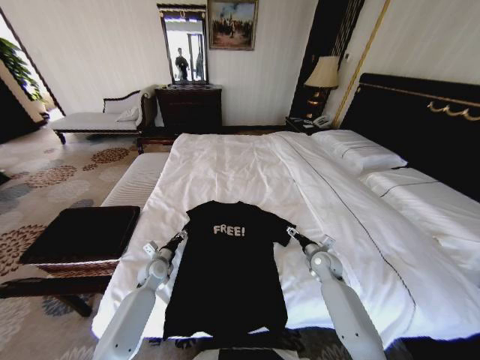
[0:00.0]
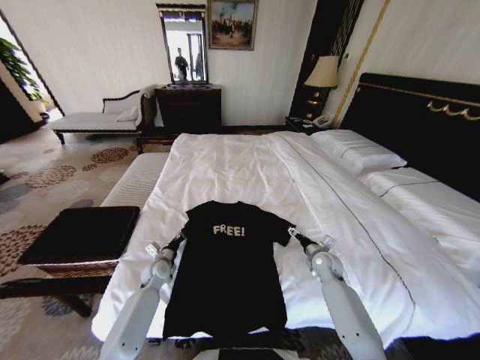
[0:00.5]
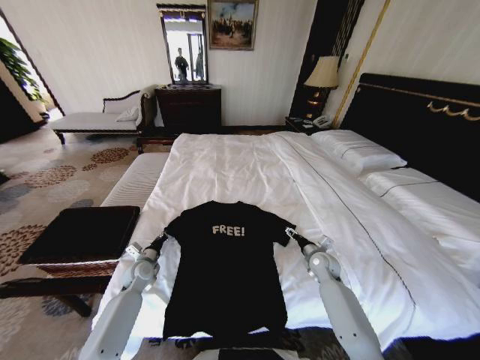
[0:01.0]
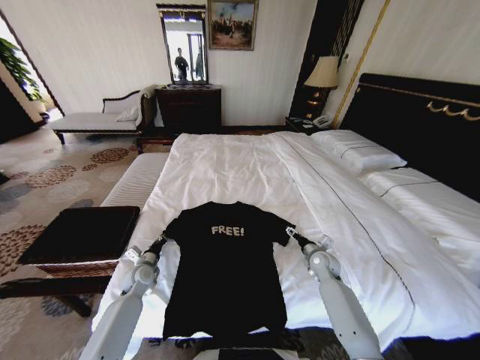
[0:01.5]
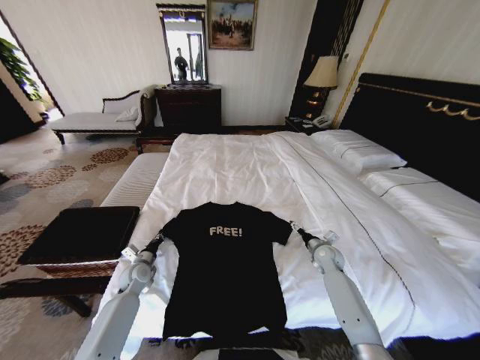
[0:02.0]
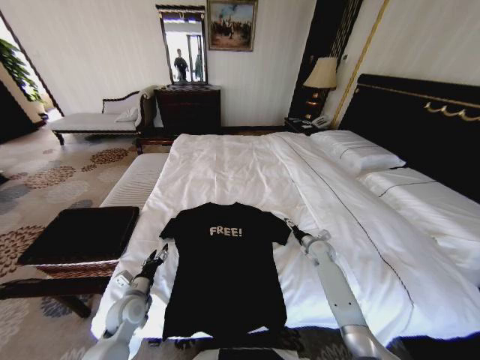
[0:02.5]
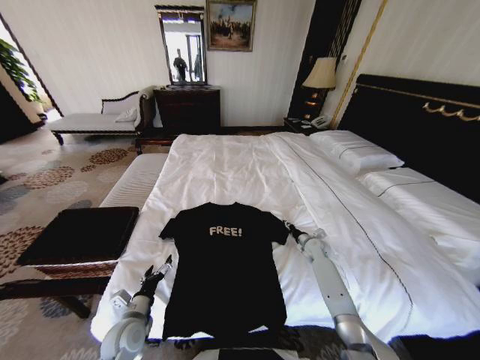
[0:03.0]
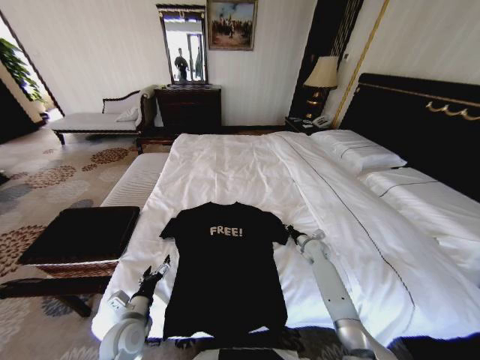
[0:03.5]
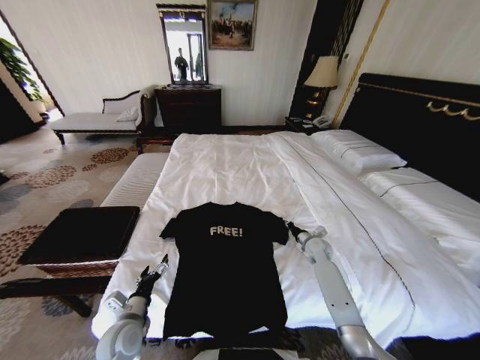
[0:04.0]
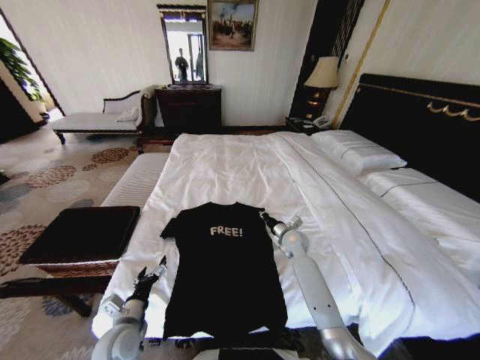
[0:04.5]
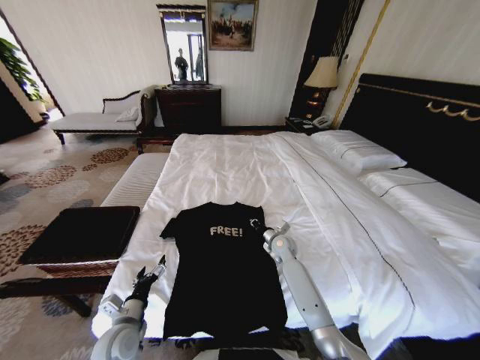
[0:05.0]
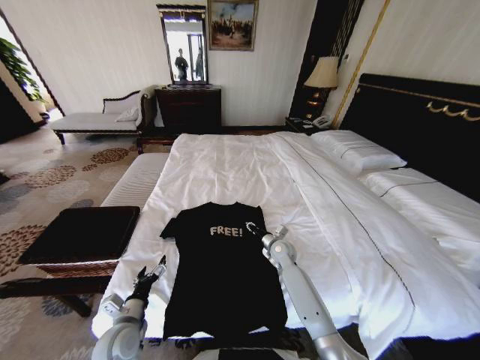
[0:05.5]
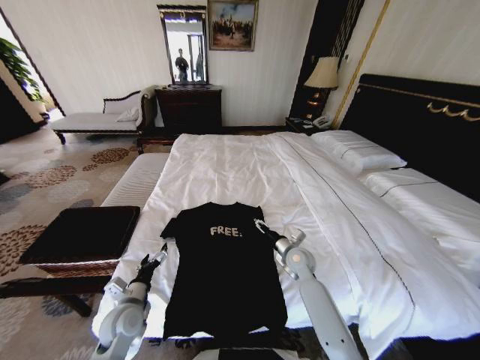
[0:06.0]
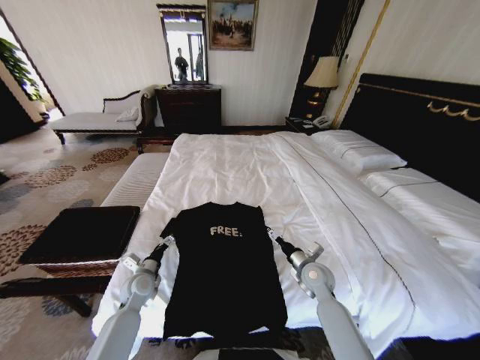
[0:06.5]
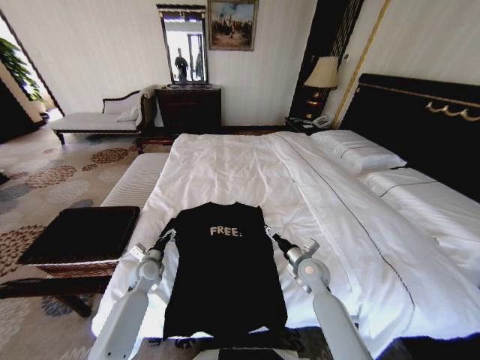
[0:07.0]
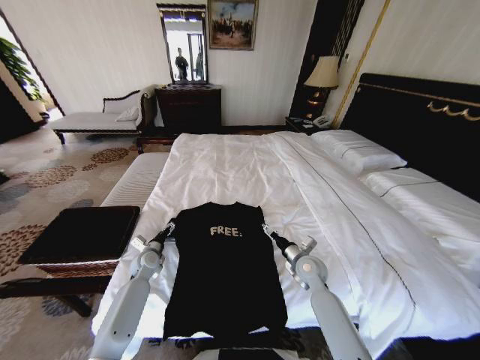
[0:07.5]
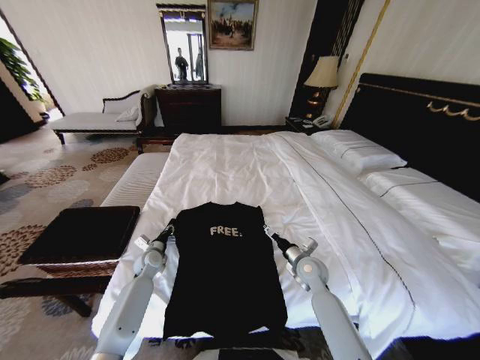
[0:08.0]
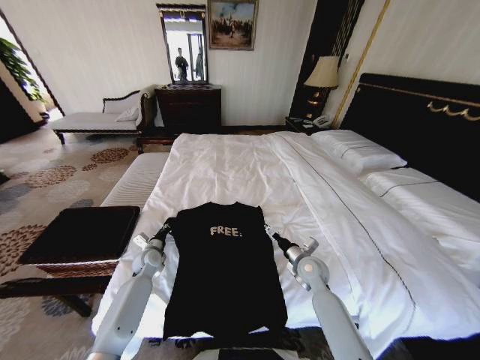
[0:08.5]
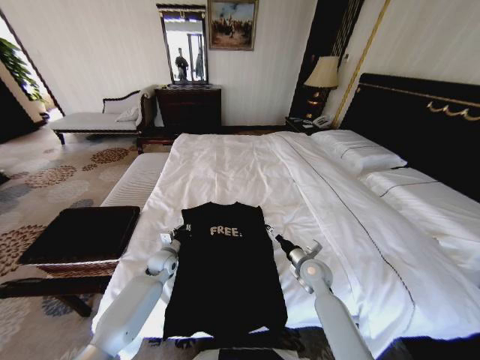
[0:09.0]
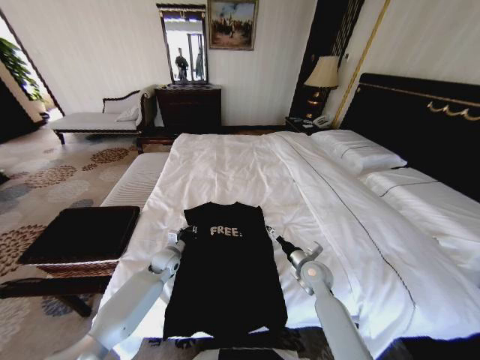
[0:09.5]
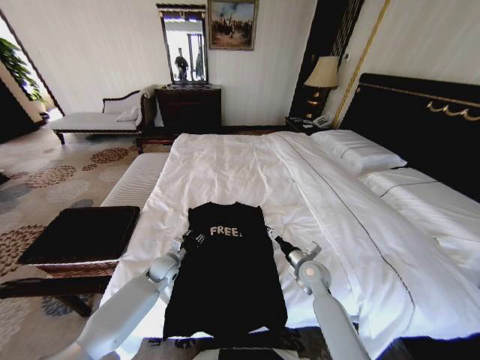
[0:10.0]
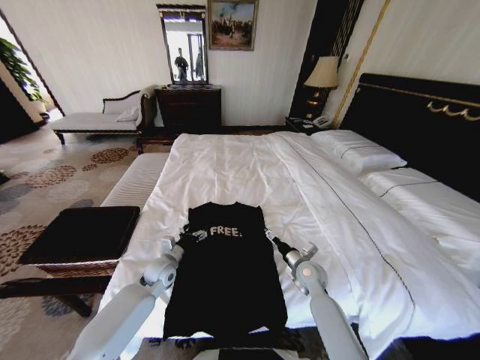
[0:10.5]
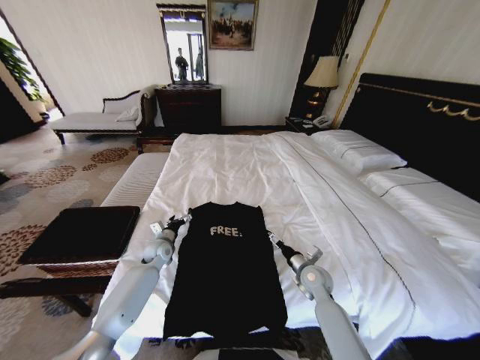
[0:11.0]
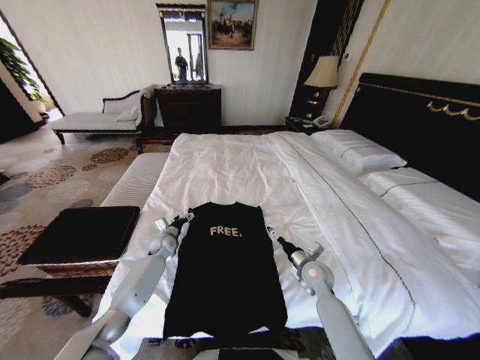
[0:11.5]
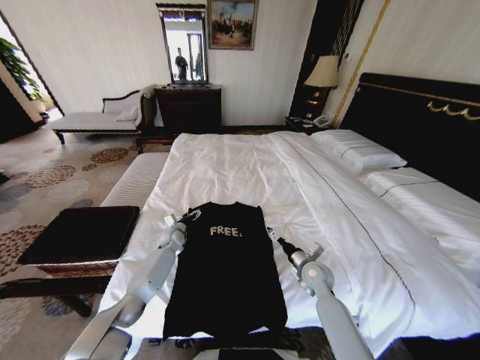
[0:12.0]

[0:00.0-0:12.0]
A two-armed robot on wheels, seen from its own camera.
Task of the whole recording: Fold the clothes on the bed and place them into the basket.
0:00.0 to 0:02.0: The left gripper moves to the left, roughly 5 cm, and closes.
0:02.0 to 0:04.0: The right gripper closes up. The left gripper is displaced backward by some 15 cm, and opens its fingers.
0:04.0 to 0:06.0: The right gripper heads to the left and backward, covering about 15 cm, and opens.
0:06.0 to 0:08.0: The left gripper goes approximately 20 cm forward, and closes.
0:08.0 to 0:10.0: The left gripper travels to the right by some 5 cm, and closes and opens again.
0:10.0 to 0:12.0: The left gripper is displaced forward by some 15 cm, and opens.

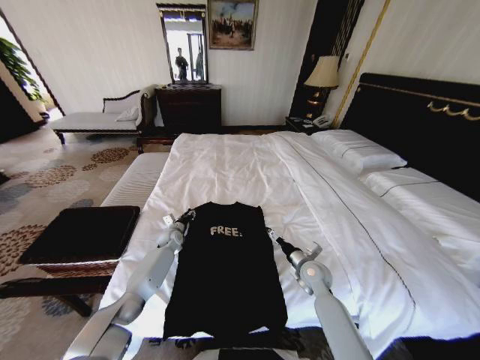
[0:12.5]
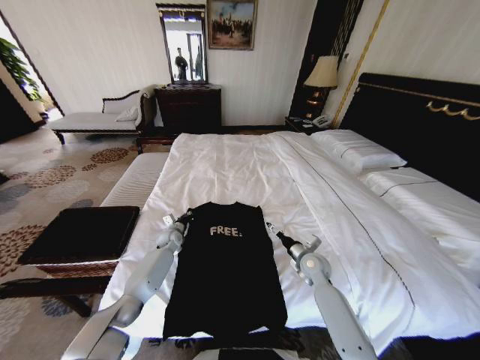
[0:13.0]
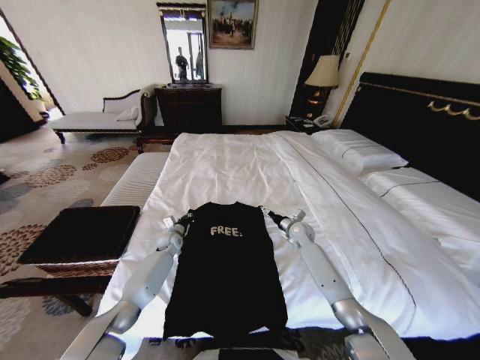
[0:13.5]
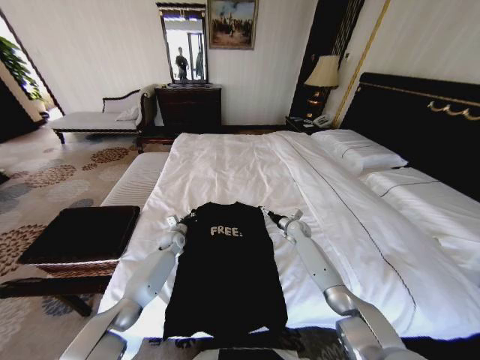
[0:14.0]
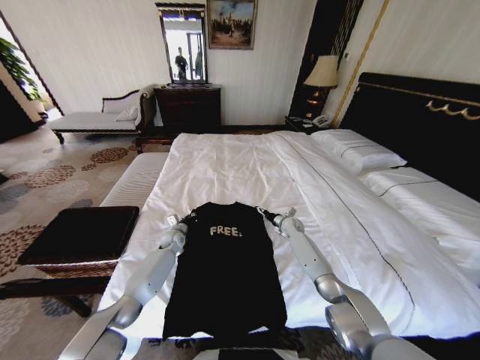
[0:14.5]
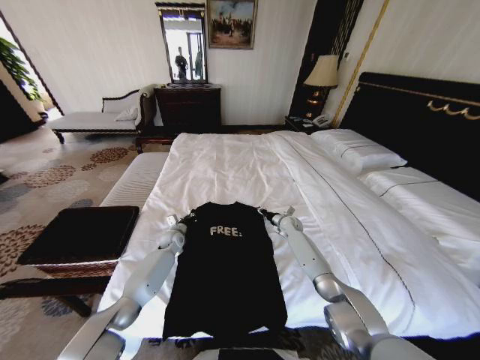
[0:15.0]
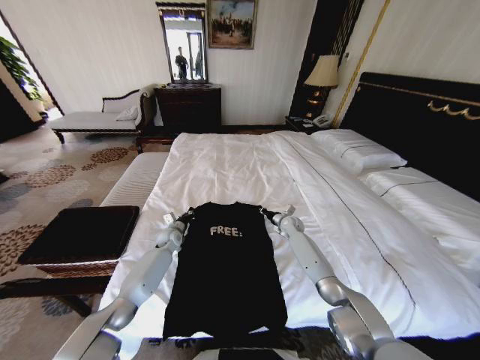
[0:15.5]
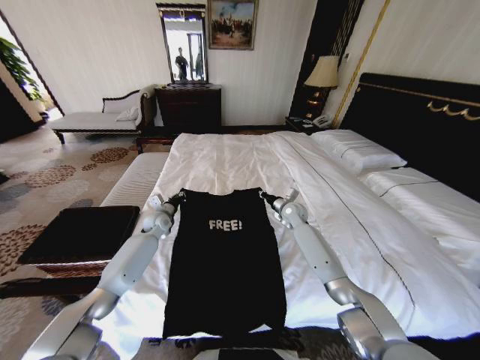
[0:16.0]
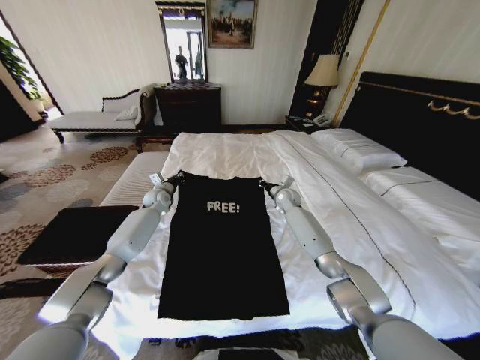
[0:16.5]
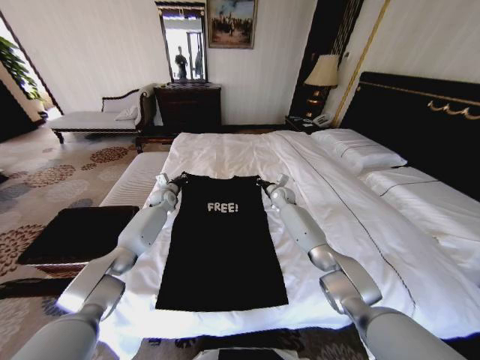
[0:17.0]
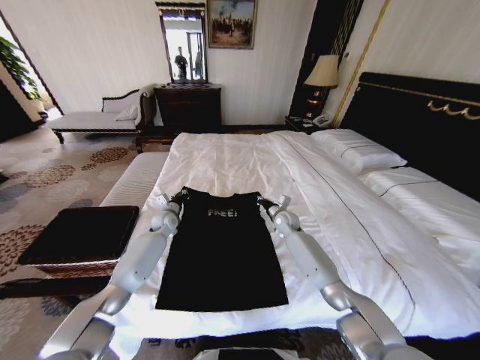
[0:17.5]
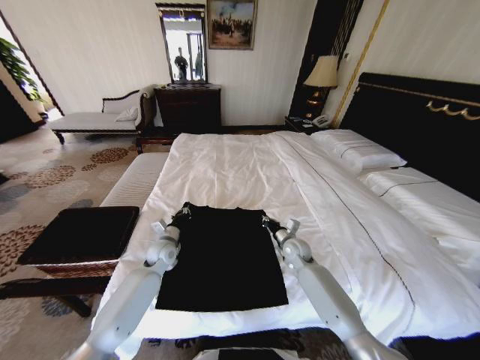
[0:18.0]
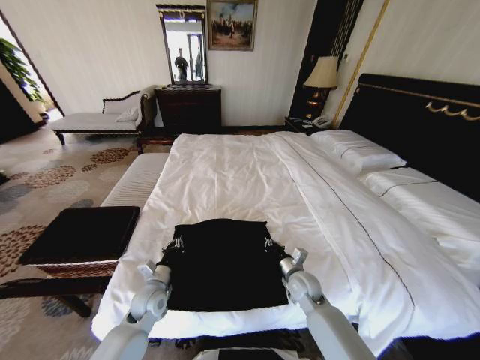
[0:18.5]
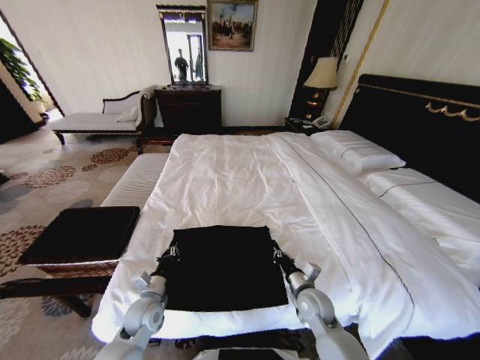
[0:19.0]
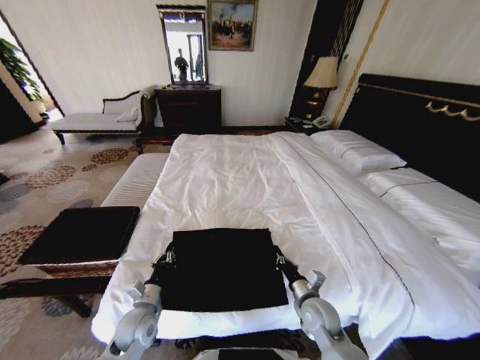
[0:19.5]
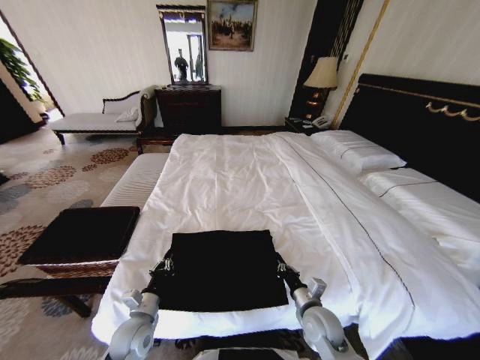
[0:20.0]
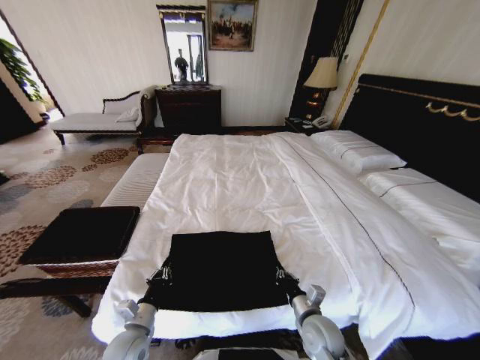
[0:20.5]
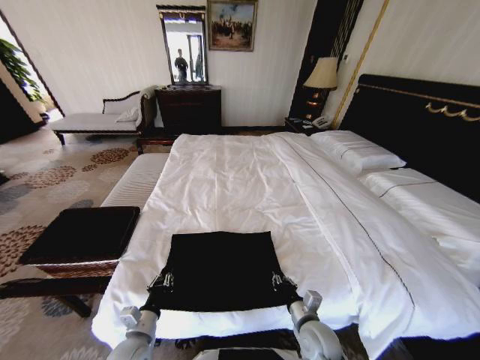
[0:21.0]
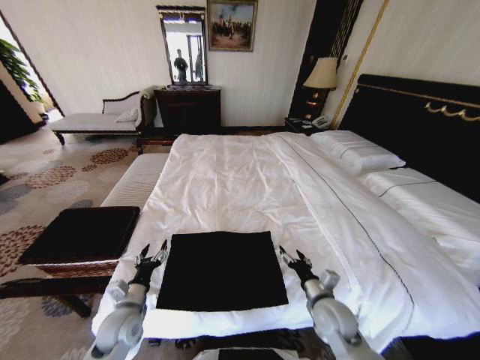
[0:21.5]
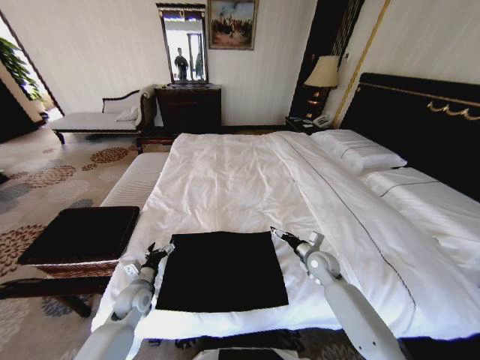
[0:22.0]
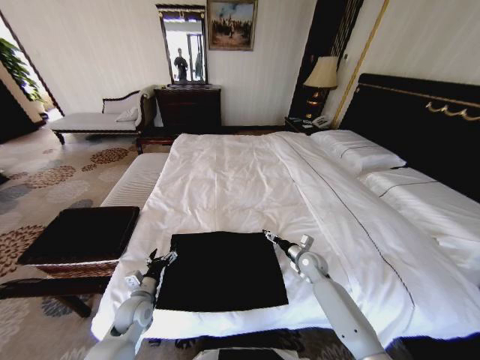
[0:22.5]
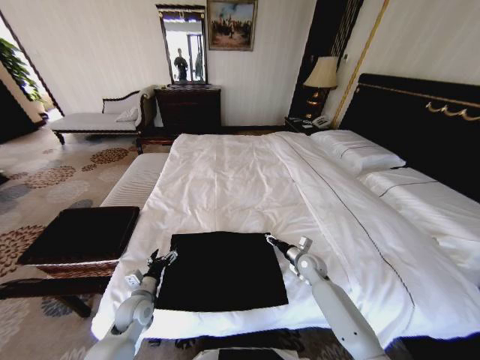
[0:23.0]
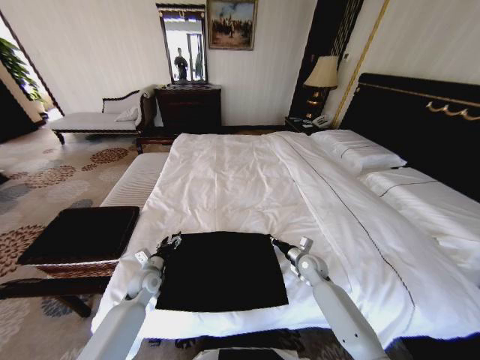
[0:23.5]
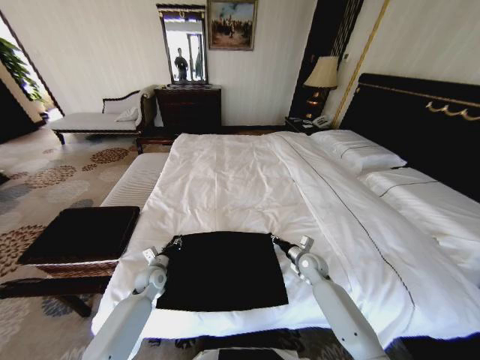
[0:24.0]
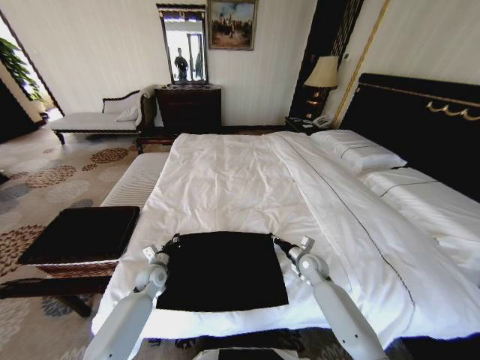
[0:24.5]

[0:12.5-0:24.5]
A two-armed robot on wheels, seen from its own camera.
Task of the whole recording: Fold the clothes on the bed and place them into the basket.
0:12.5 to 0:14.5: The left gripper closes up; the right gripper heads forward, covering roughly 20 cm.
0:14.5 to 0:16.5: The right gripper heads upward, covering roughly 15 cm, and closes its fingers. Meanwhile the left gripper moves upward and forward, approximately 20 cm.
0:16.5 to 0:18.5: The grippers both shift backward by some 30 cm.
0:18.5 to 0:20.5: Both grippers move backward, roughly 10 cm.
0:20.5 to 0:22.5: The right gripper moves forward, about 20 cm, and opens up; the left gripper is displaced forward by approximately 10 cm, and opens its fingers.
0:22.5 to 0:24.5: The left gripper shifts about 10 cm forward, and closes, while the right gripper closes up.

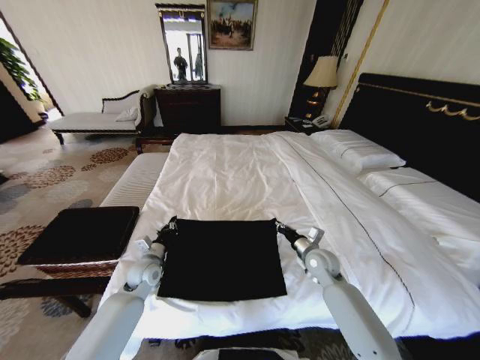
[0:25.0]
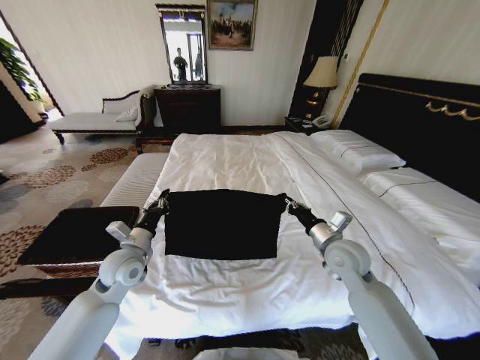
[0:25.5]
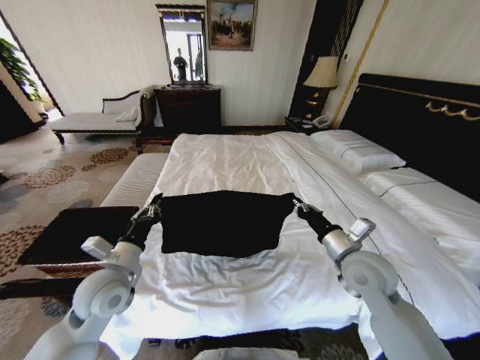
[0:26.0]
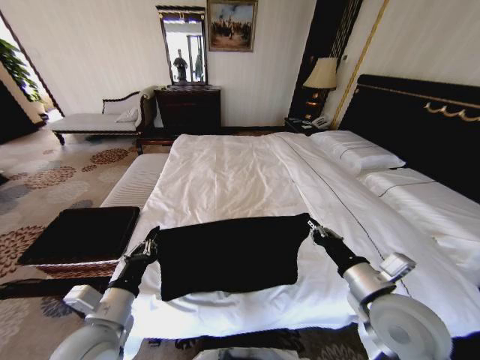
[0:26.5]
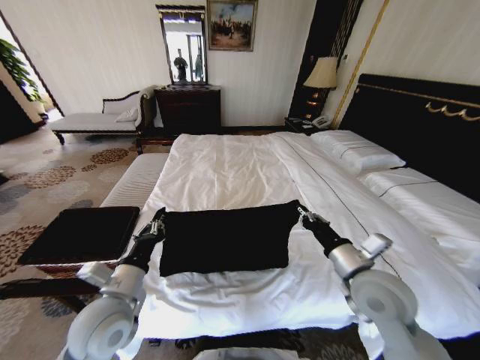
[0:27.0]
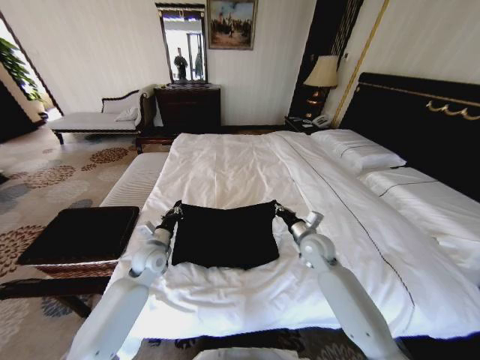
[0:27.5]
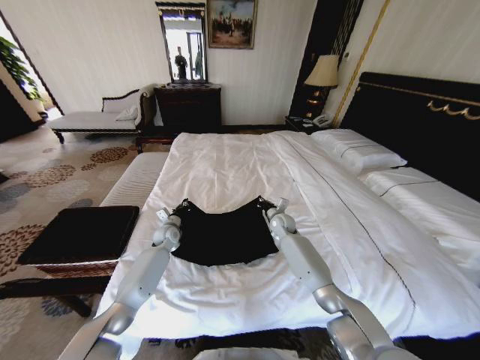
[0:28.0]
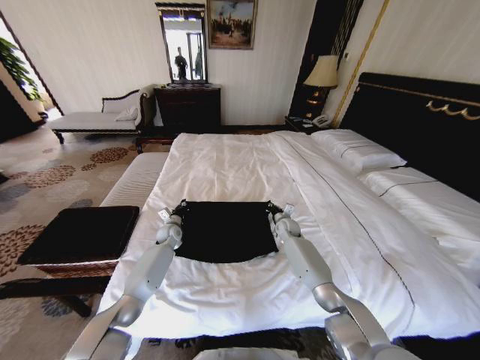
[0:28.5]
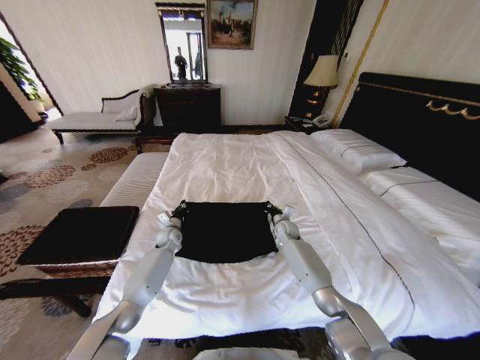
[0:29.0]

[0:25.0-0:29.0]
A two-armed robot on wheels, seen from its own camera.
Task of the whole recording: Fold the clothes on the bed and place them into the basket.
0:25.0 to 0:27.0: The right gripper heads upward and backward, covering some 20 cm, while the left gripper heads backward and upward, covering some 20 cm.
0:27.0 to 0:29.0: Both grippers travel together forward and downward, approximately 35 cm.
